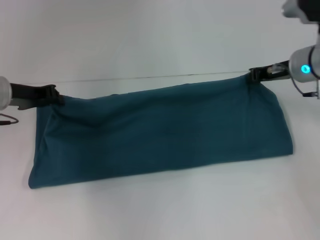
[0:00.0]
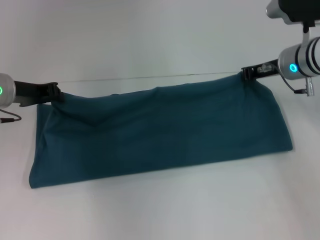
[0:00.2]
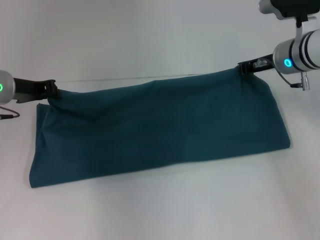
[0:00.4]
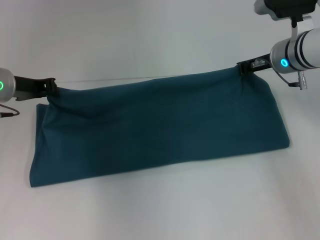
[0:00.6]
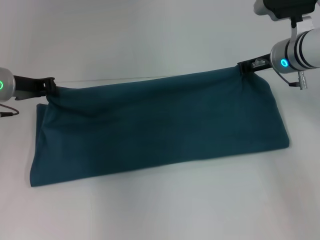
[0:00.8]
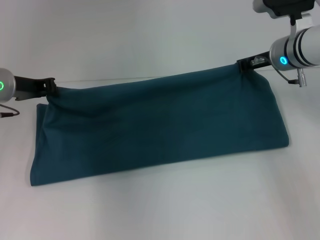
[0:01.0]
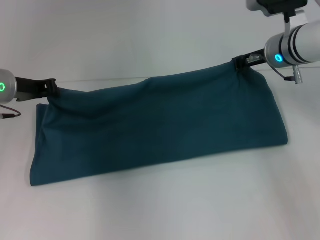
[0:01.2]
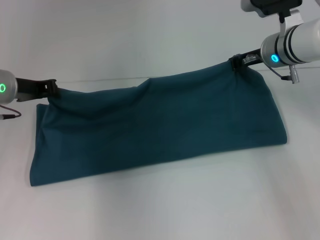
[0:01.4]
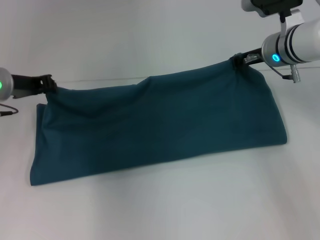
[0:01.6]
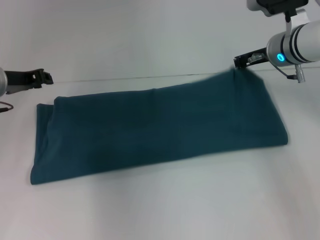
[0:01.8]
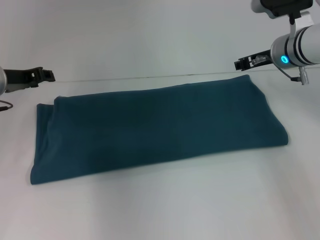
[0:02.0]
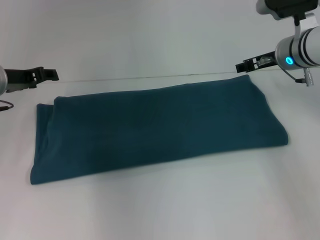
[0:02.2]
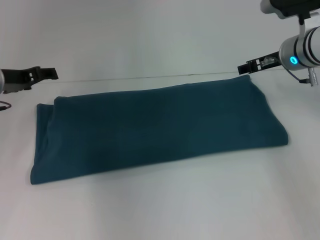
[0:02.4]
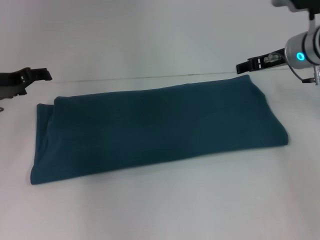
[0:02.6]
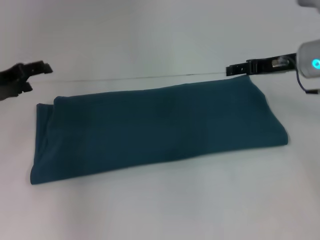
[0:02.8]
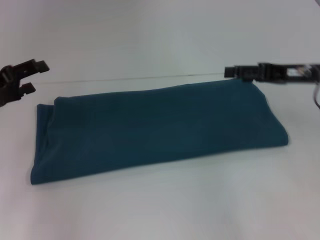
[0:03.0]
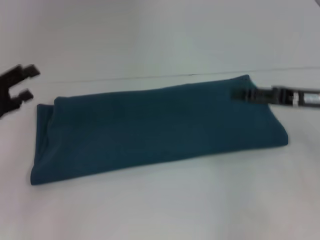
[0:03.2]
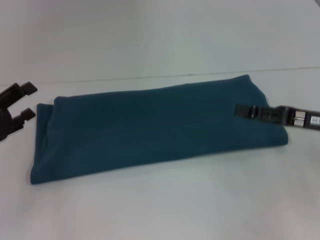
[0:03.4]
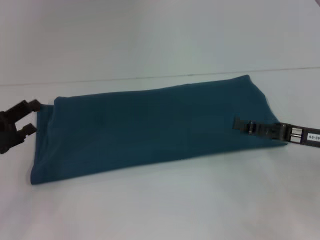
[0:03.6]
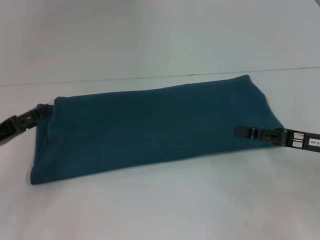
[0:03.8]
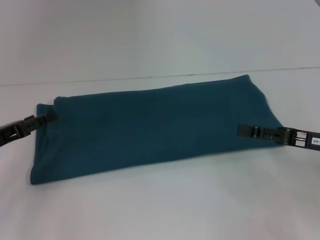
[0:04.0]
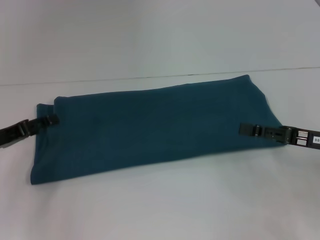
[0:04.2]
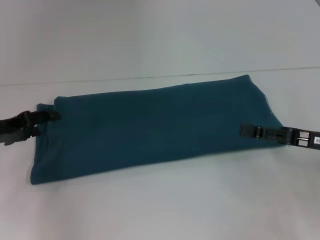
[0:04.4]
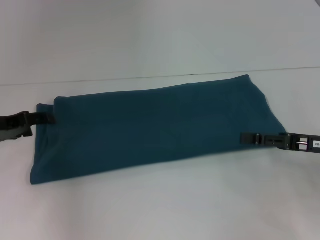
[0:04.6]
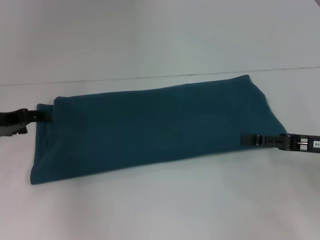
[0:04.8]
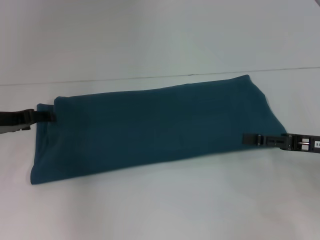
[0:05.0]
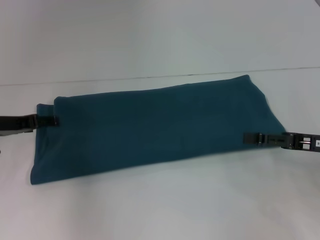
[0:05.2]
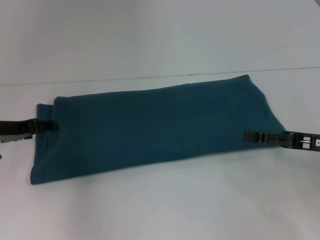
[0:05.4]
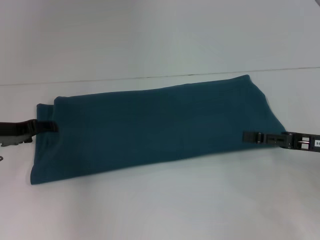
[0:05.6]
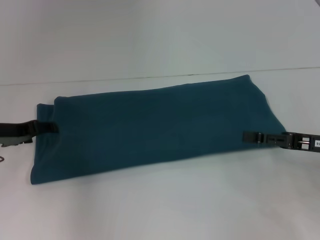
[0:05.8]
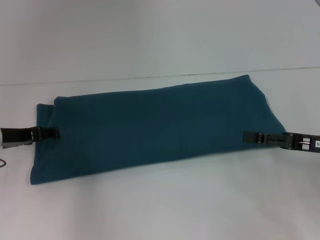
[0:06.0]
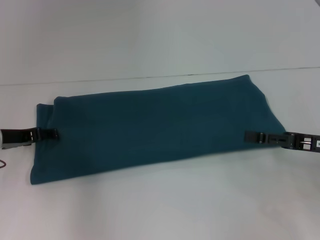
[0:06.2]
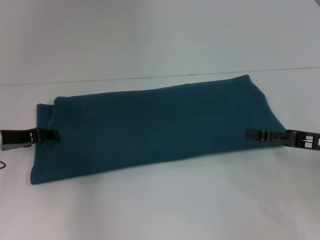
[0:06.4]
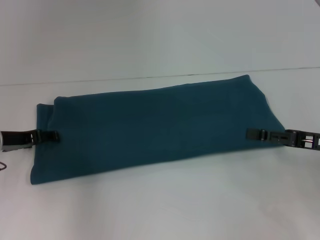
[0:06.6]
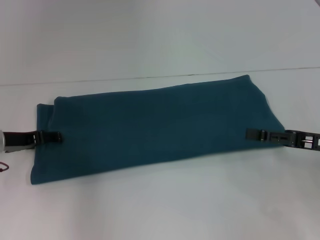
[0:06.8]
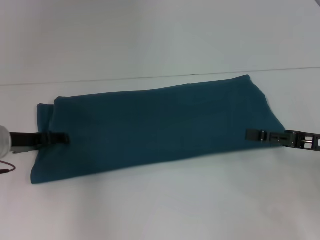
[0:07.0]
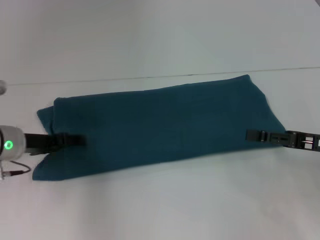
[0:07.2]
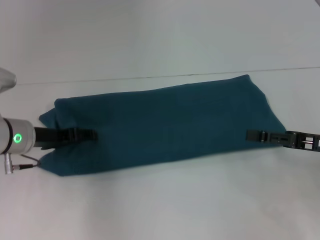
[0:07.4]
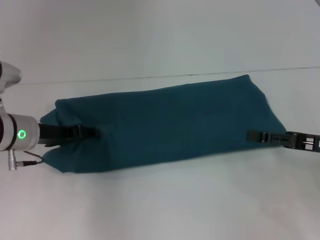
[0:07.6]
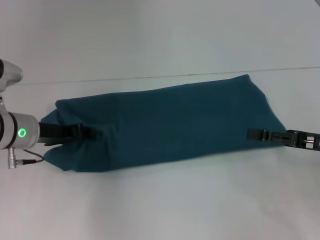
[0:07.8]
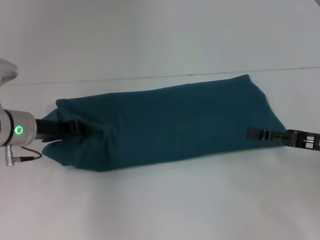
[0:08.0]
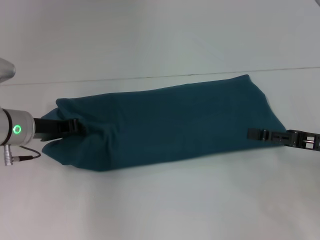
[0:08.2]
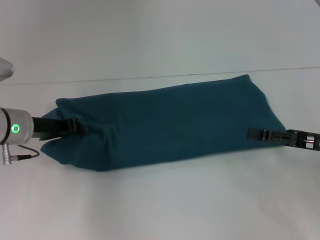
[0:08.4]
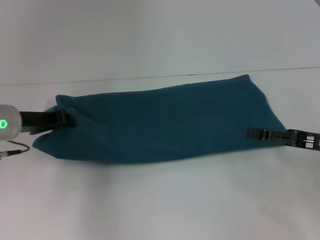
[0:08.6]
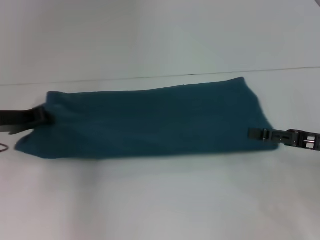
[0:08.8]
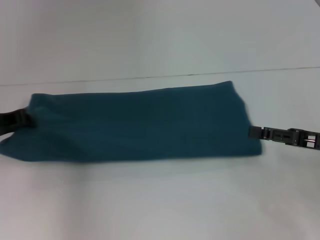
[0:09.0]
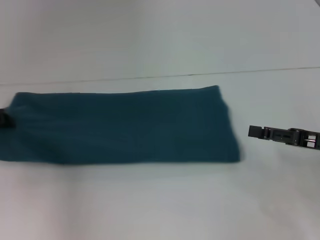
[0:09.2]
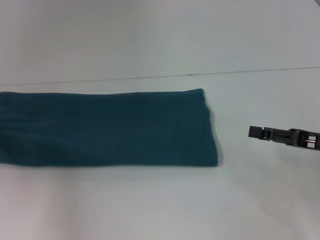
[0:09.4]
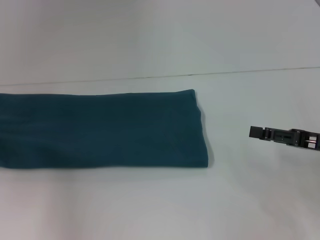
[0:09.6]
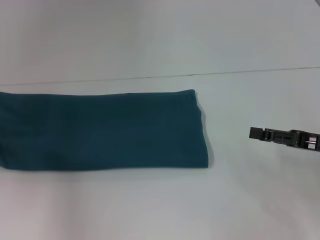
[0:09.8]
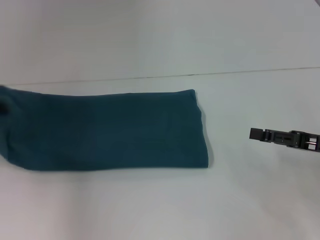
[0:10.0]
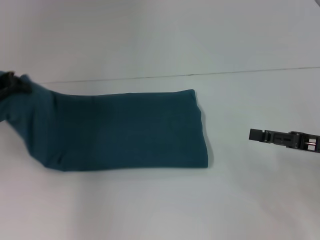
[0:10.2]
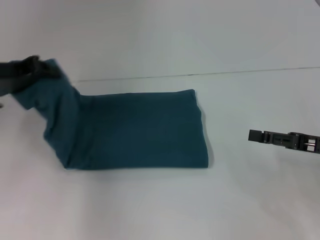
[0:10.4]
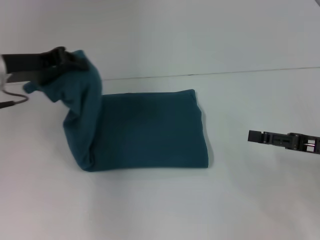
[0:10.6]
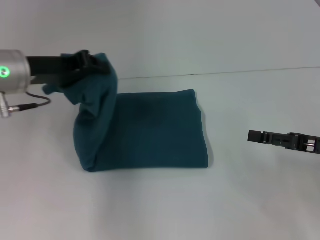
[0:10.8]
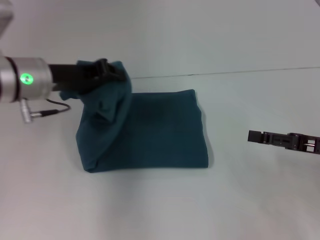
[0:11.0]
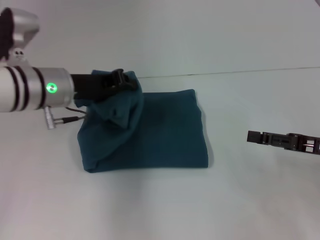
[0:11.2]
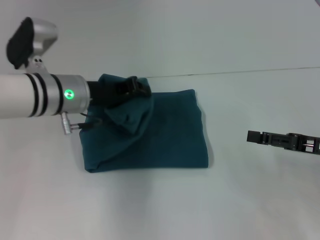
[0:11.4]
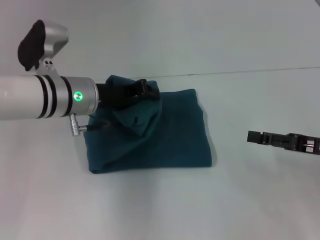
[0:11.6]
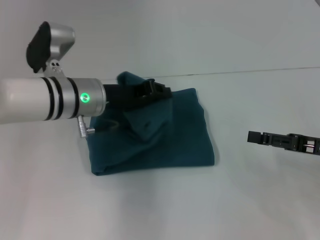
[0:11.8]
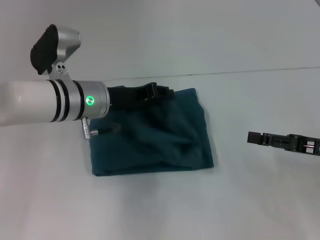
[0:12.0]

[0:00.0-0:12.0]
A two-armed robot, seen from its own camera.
Step, 0:00.0 to 0:02.0: Fold the clothes to the right.
0:00.0 to 0:01.6: The right gripper moves approximately 5 cm.
0:01.6 to 0:03.0: The left gripper is displaced backward and to the left by roughly 10 cm, and opens up, while the right gripper shifts some 10 cm backward and to the right, and opens up.
0:03.0 to 0:04.4: The right gripper heads backward and downward, covering approximately 10 cm.
0:06.0 to 0:07.6: The left gripper moves to the right, some 5 cm.
0:07.6 to 0:09.0: The left gripper shifts some 10 cm to the left, and closes.
0:09.0 to 0:10.4: The left gripper goes about 10 cm upward, and goes to the left and returns, some 5 cm each way.
0:10.4 to 0:12.0: The left gripper is displaced to the right and downward by roughly 15 cm.

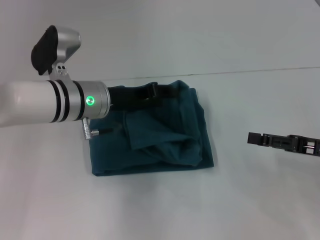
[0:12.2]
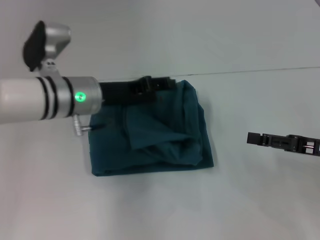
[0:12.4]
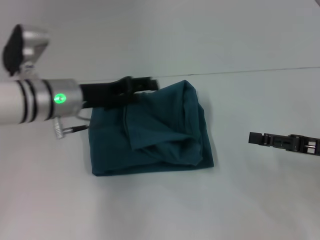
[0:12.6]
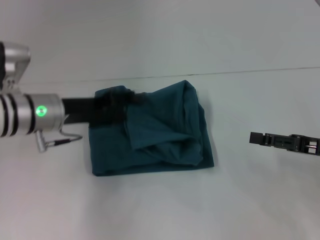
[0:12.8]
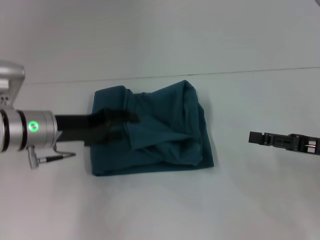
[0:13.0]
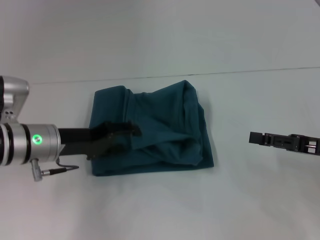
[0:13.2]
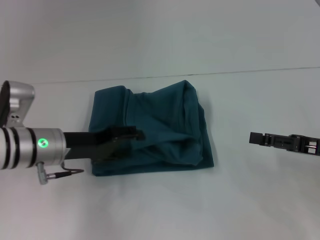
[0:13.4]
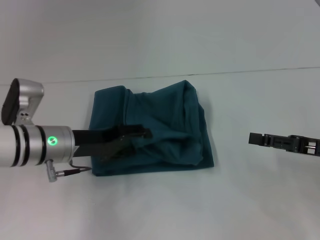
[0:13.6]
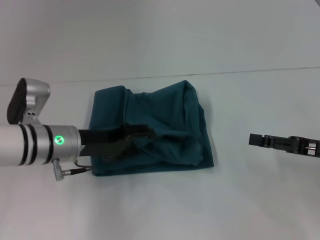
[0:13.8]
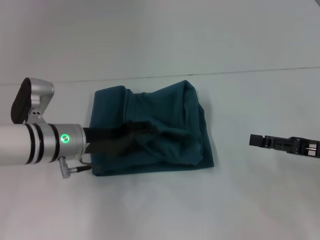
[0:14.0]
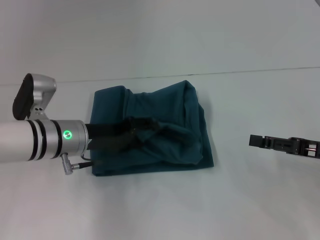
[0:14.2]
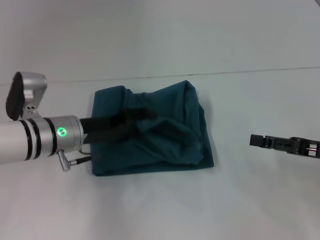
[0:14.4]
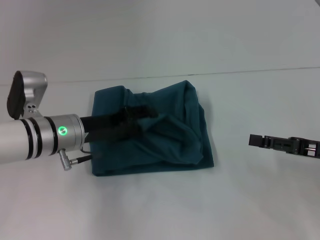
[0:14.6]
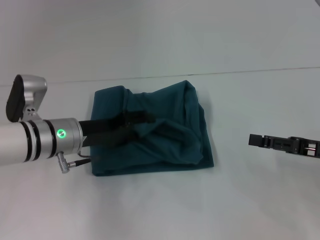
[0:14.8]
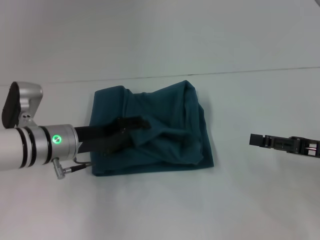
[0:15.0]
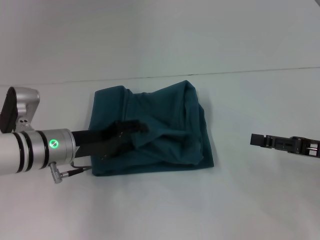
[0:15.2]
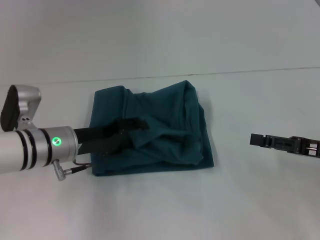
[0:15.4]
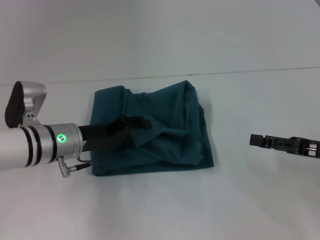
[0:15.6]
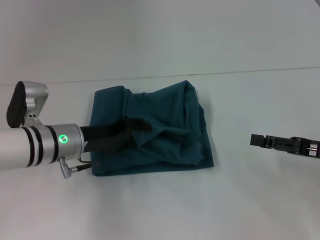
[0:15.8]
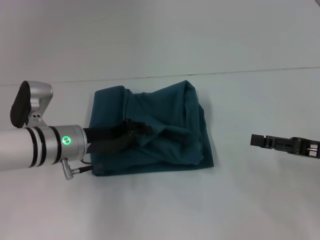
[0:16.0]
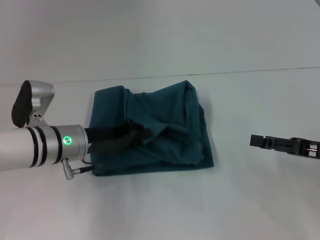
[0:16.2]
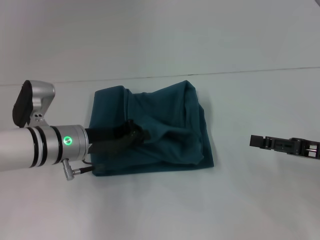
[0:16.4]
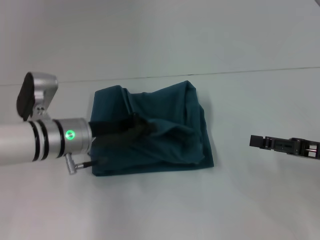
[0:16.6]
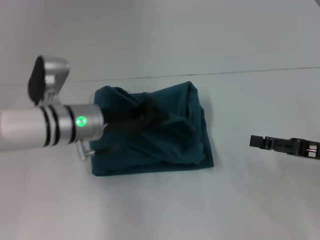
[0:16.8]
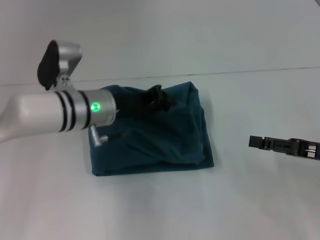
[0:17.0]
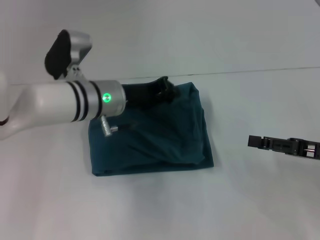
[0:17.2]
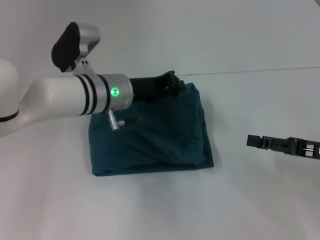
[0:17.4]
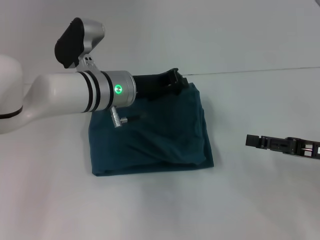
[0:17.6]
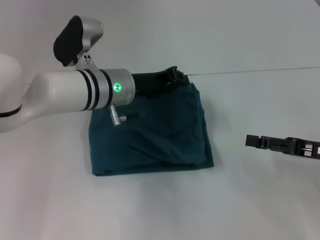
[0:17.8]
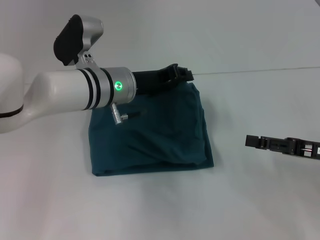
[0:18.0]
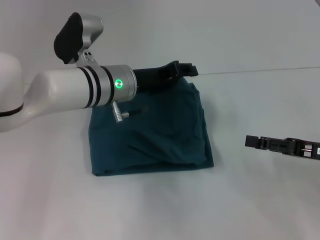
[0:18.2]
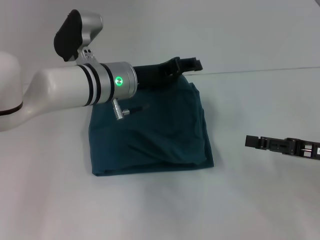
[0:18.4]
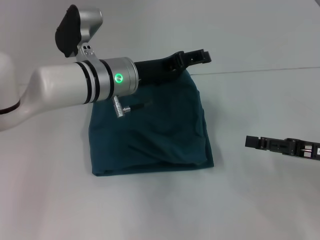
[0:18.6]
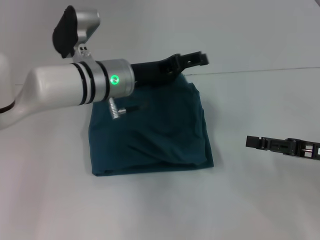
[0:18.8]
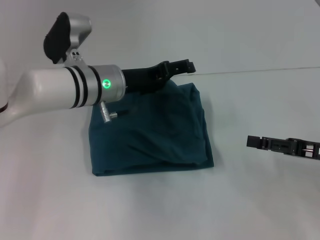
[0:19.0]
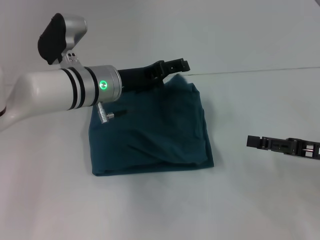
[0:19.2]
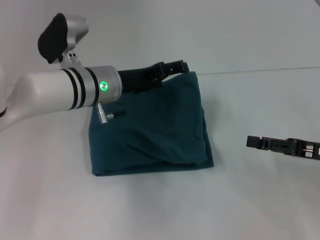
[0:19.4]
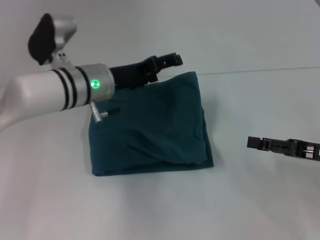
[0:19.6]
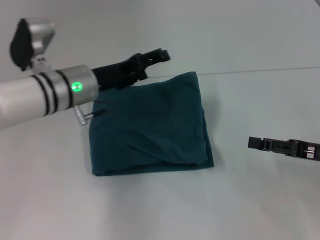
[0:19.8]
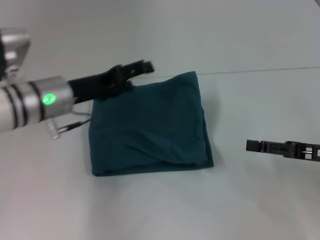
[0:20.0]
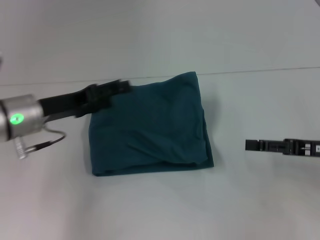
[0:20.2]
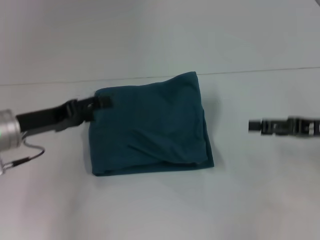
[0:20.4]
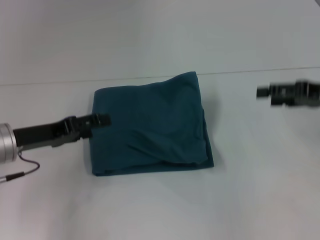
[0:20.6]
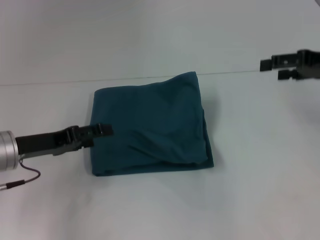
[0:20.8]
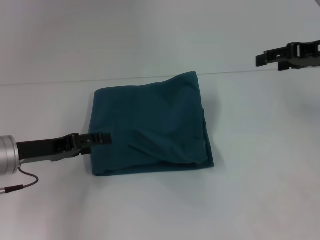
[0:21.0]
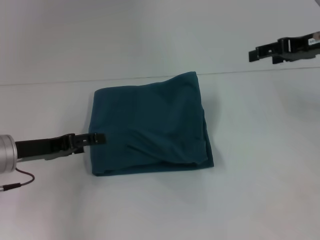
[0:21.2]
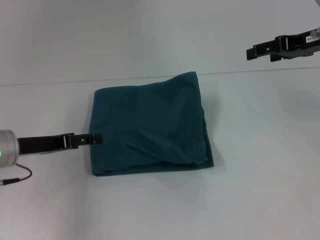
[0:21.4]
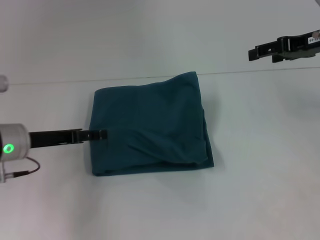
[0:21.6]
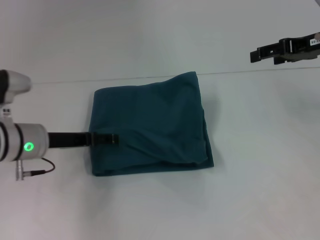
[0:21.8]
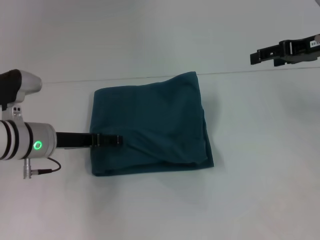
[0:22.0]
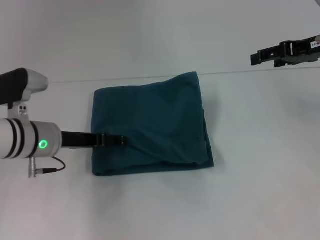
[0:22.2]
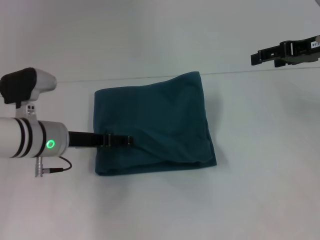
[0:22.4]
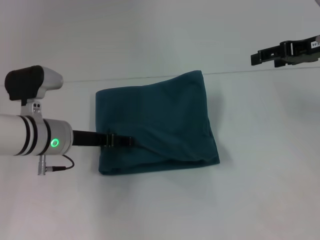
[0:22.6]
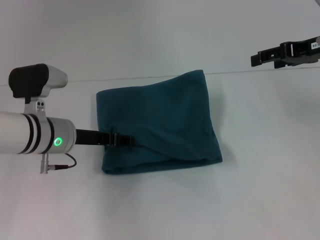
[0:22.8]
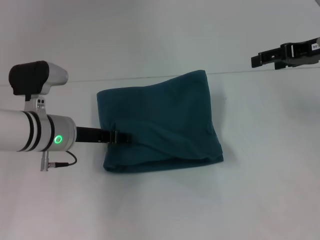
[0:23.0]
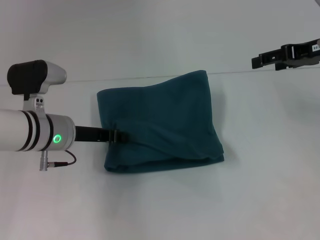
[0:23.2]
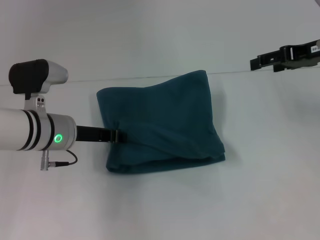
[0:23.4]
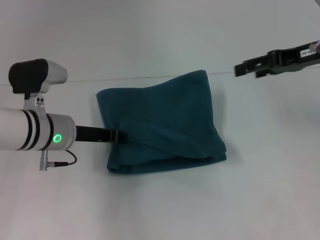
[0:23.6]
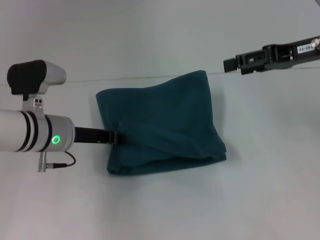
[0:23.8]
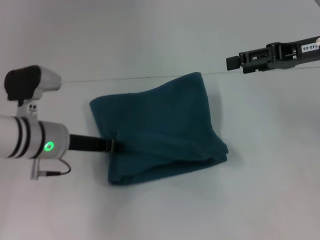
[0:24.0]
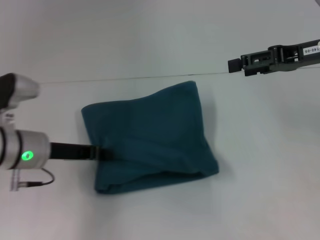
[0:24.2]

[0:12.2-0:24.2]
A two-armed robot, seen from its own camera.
Step, 0:12.2 to 0:19.4: Fold the clothes to the left.
0:12.2 to 0:13.8: The left gripper shifts by approximately 10 cm, and opens its fingers.
0:13.8 to 0:15.2: The grippers move only a little.
0:15.2 to 0:16.6: The left gripper closes.
0:16.6 to 0:18.2: The left gripper moves to the right, approximately 5 cm.
0:18.2 to 0:19.8: The left gripper goes roughly 5 cm to the left, and opens its fingers.
0:19.8 to 0:21.2: The right gripper goes roughly 20 cm upward and forward, while the left gripper heads to the left and backward, covering some 15 cm.
0:21.2 to 0:22.6: The left gripper shifts about 10 cm to the right.
0:22.6 to 0:24.2: The left gripper closes up.
